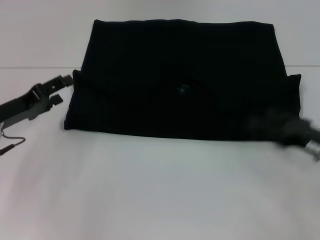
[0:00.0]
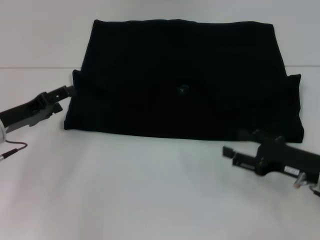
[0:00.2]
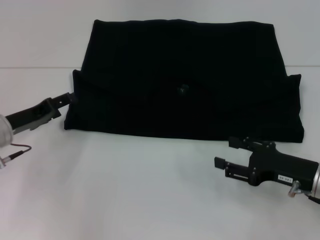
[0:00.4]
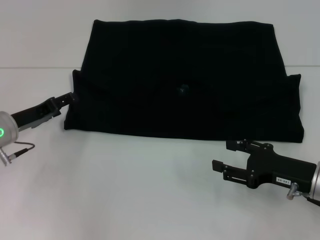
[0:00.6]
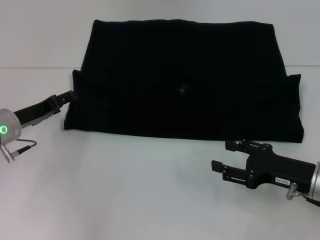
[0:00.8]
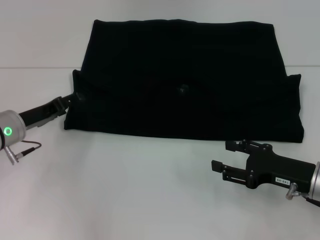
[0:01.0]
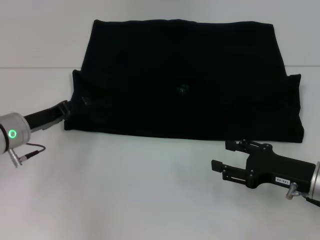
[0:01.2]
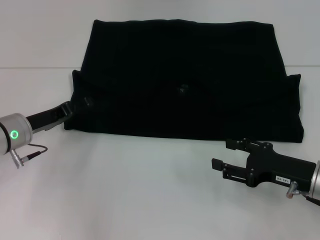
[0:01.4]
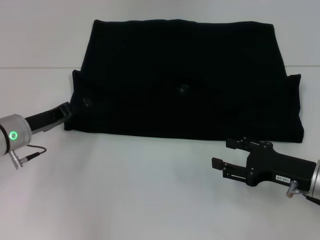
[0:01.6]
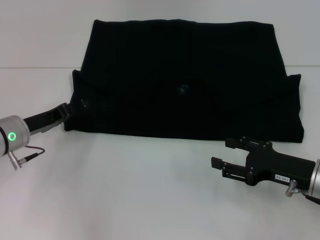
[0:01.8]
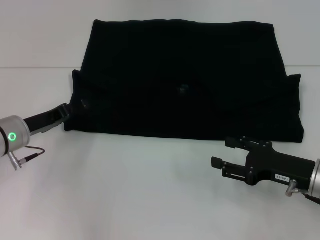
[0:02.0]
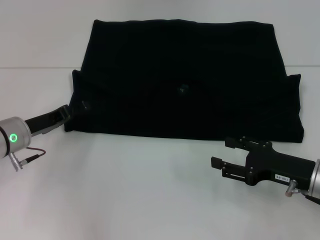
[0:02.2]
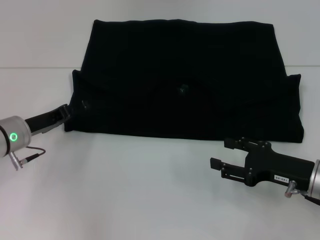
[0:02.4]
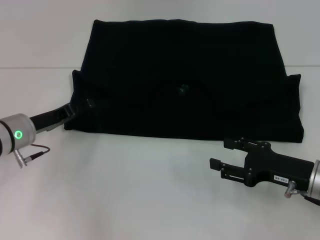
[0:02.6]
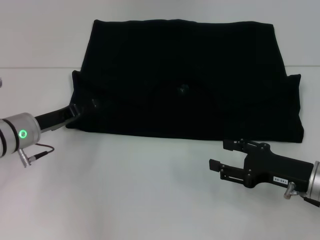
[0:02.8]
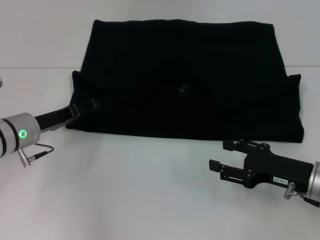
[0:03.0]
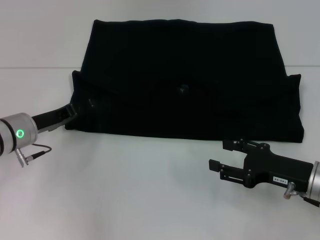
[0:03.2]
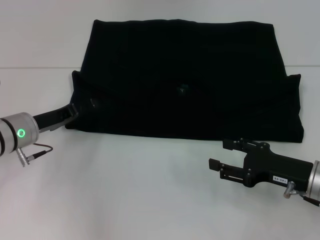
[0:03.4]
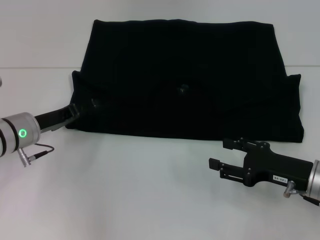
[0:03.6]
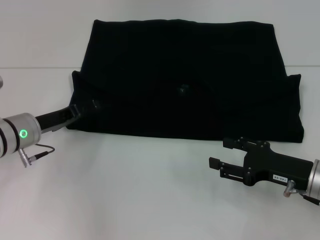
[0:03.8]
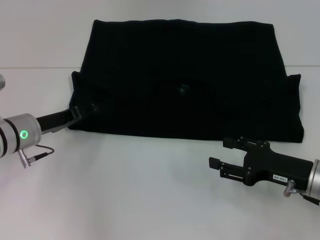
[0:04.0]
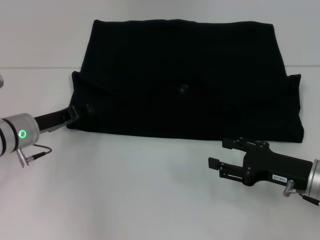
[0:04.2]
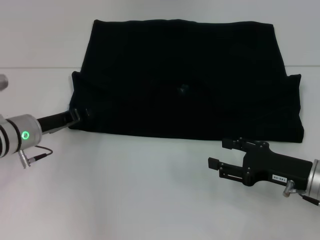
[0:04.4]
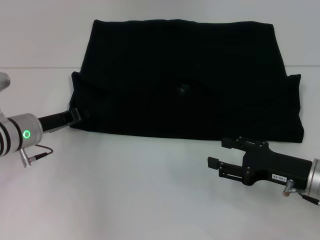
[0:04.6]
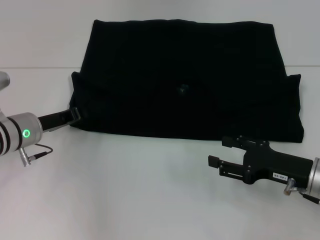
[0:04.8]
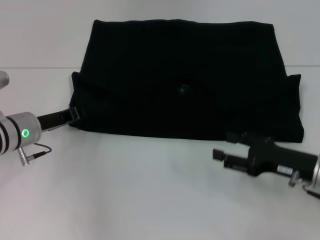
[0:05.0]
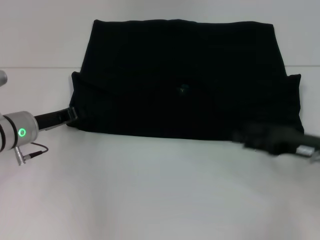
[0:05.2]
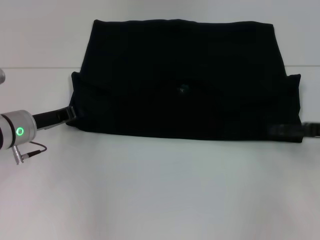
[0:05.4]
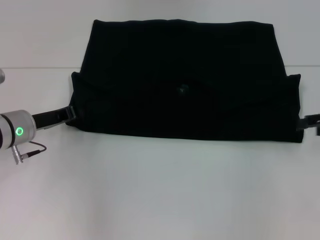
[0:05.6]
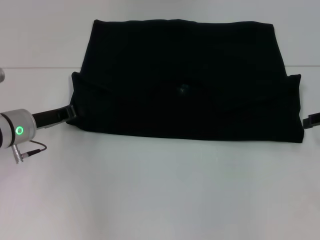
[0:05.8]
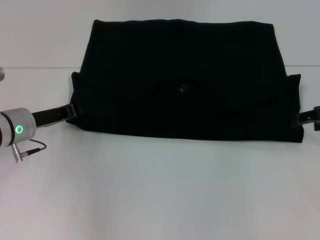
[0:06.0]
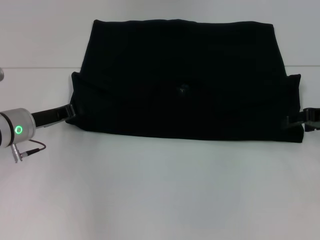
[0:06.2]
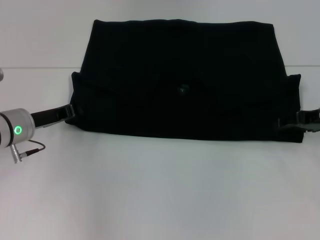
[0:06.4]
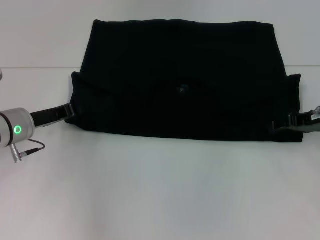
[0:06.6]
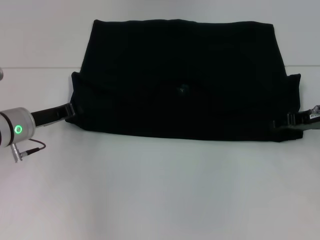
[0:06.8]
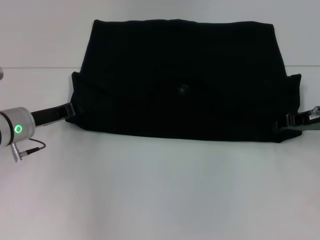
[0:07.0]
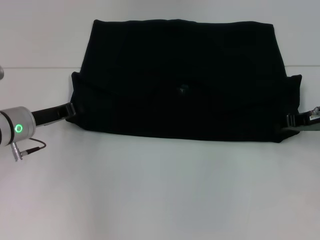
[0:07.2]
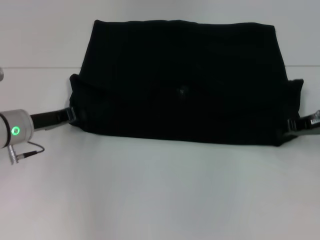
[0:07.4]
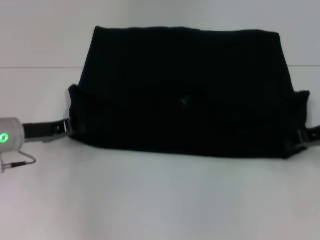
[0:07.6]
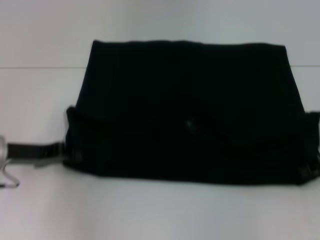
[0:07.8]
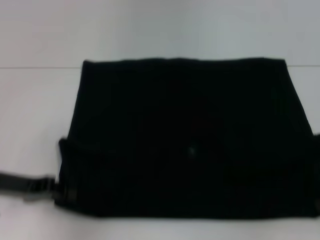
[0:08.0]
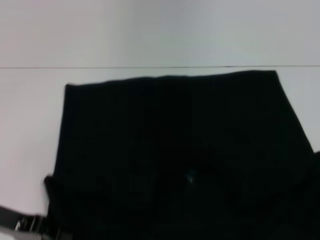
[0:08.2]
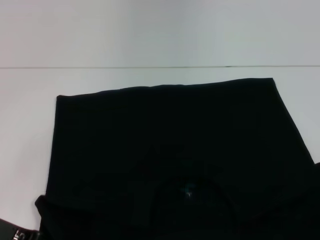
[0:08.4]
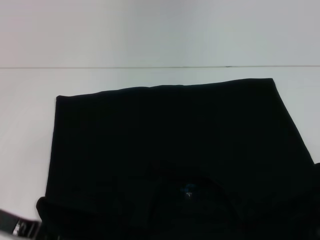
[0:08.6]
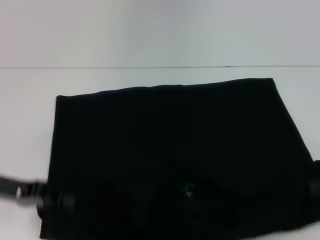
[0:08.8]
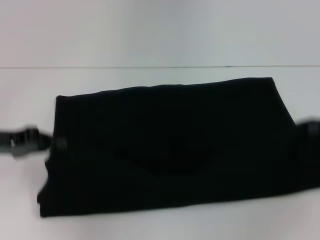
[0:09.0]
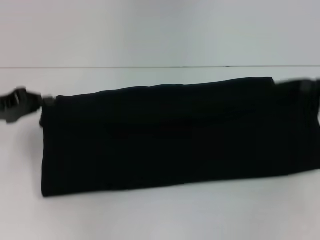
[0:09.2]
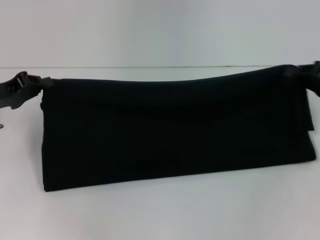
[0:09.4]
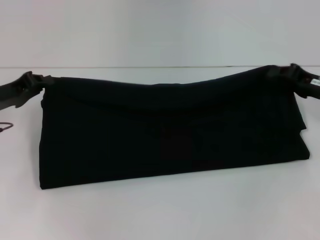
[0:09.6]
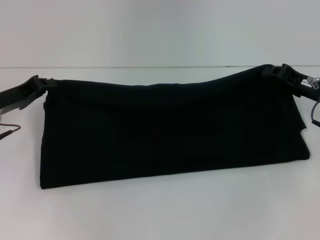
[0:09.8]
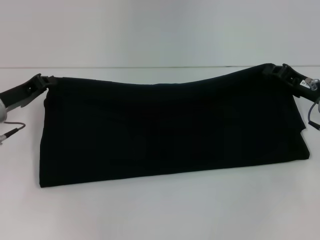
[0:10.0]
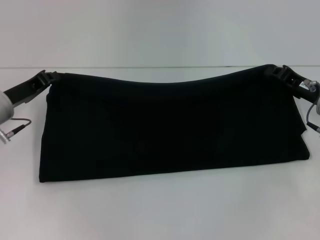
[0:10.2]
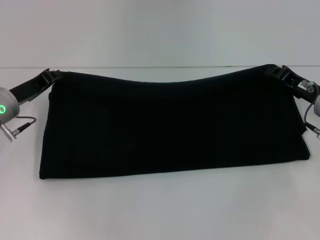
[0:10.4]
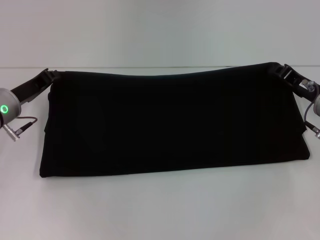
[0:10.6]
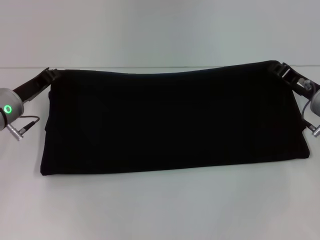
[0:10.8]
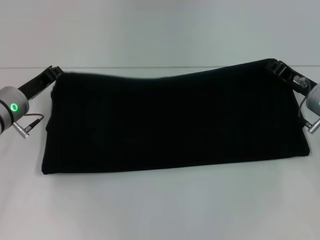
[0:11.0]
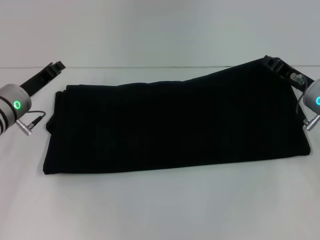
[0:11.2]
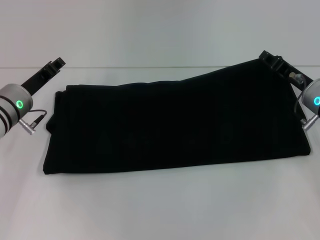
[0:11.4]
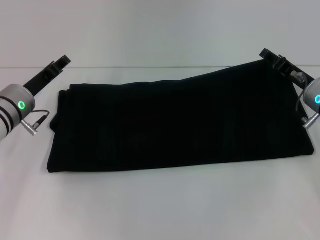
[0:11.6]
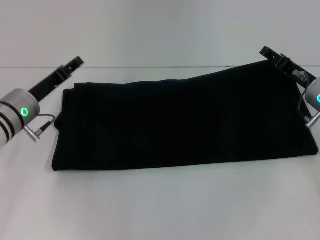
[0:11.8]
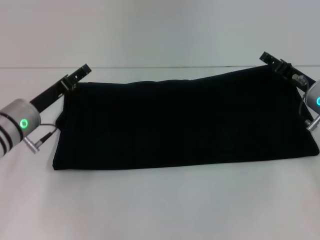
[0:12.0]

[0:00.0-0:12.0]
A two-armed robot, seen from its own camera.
Step, 0:00.0 to 0:08.2: Pull the clothes with your left hand.
Step, 0:00.0 to 0:08.2: Pull the clothes with your right hand.
0:01.6 to 0:03.0: The grippers stay close to where they were, moving slightly.
0:03.0 to 0:04.4: The two grippers keep their place.
0:04.4 to 0:06.0: The left gripper closes up, while the right gripper is displaced upward, forward and to the right by approximately 15 cm.
0:06.0 to 0:07.6: The right gripper closes its fingers.
0:07.6 to 0:09.0: The right gripper goes roughly 5 cm to the right. Meanwhile the left gripper shifts some 5 cm upward.
0:09.0 to 0:10.4: The right gripper heads to the left, downward and forward, covering approximately 15 cm. Meanwhile the left gripper moves forward, some 5 cm.
0:10.4 to 0:12.0: The left gripper opens up, while the right gripper opens.

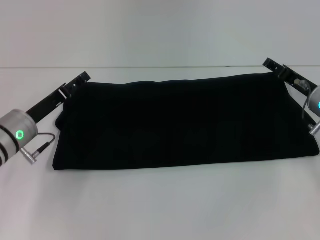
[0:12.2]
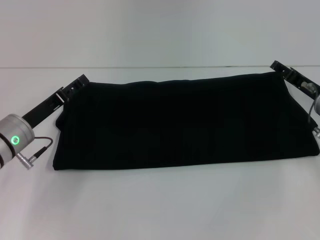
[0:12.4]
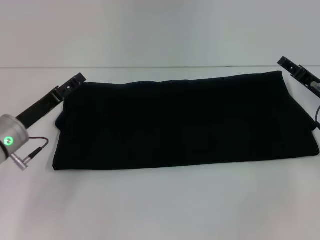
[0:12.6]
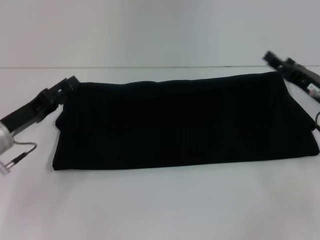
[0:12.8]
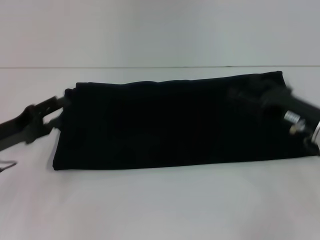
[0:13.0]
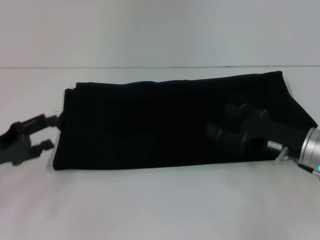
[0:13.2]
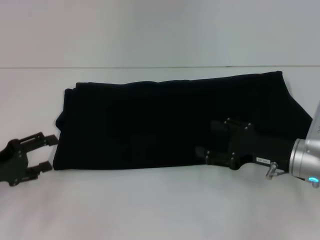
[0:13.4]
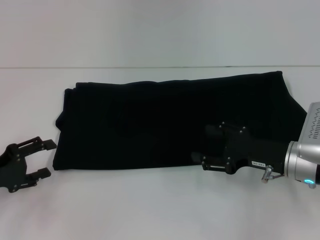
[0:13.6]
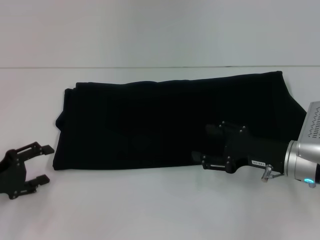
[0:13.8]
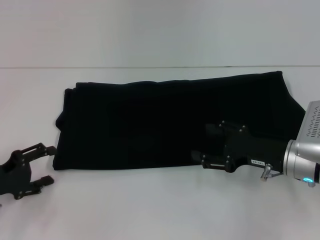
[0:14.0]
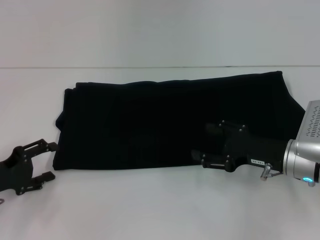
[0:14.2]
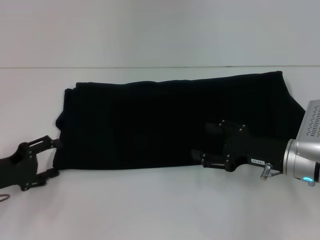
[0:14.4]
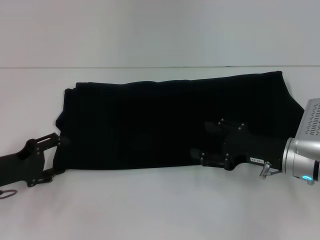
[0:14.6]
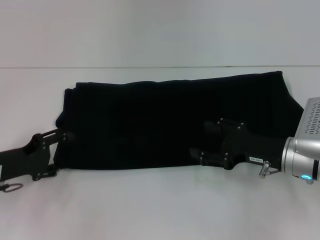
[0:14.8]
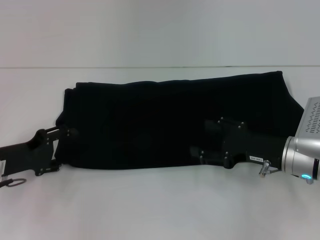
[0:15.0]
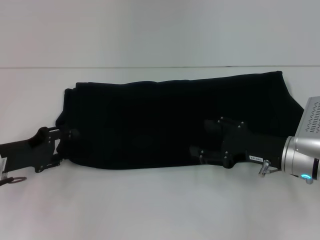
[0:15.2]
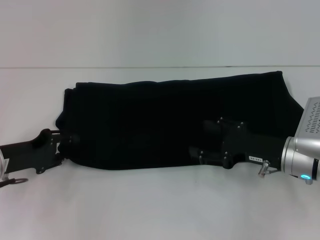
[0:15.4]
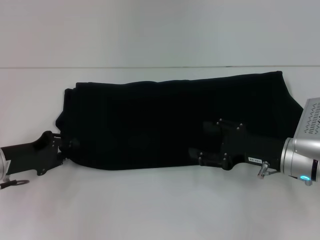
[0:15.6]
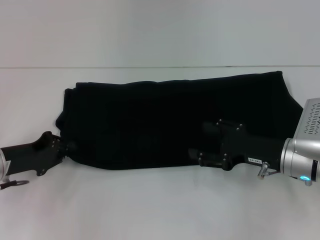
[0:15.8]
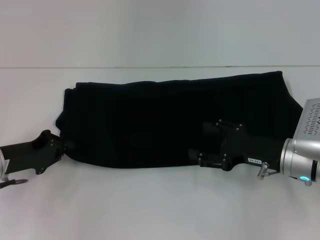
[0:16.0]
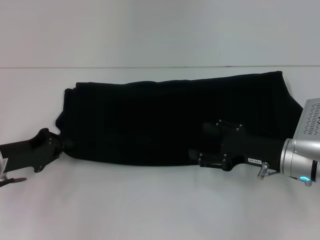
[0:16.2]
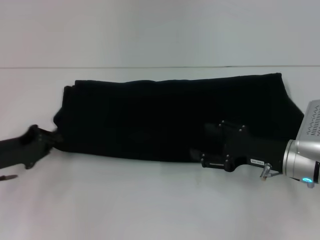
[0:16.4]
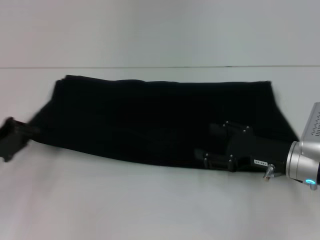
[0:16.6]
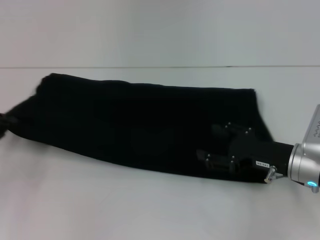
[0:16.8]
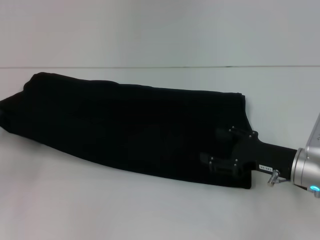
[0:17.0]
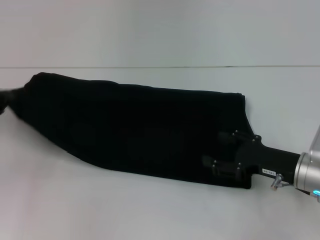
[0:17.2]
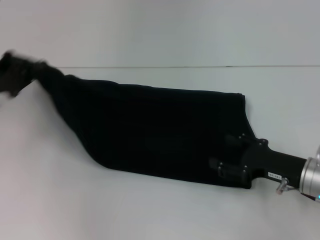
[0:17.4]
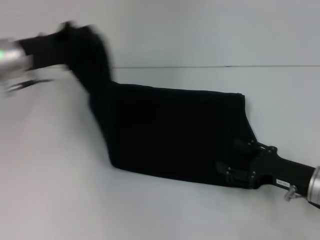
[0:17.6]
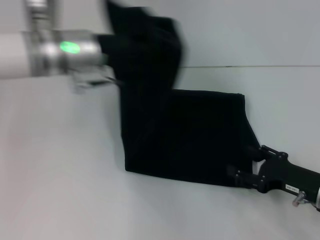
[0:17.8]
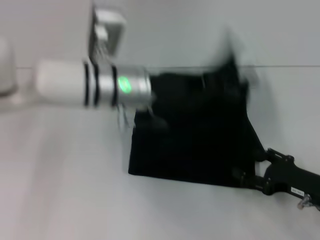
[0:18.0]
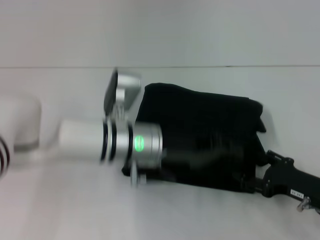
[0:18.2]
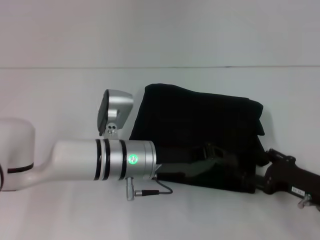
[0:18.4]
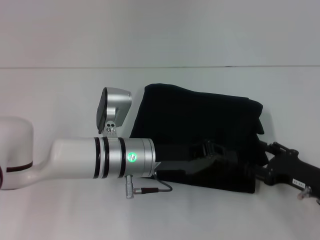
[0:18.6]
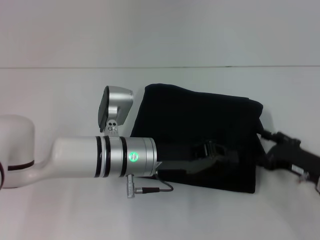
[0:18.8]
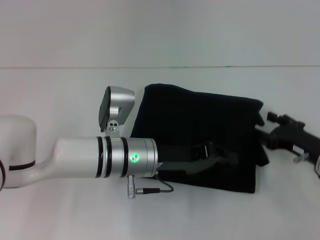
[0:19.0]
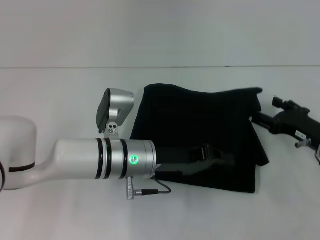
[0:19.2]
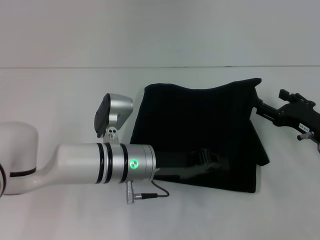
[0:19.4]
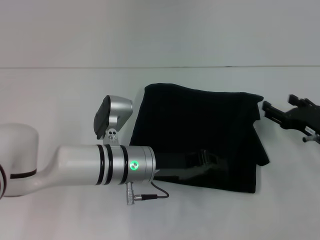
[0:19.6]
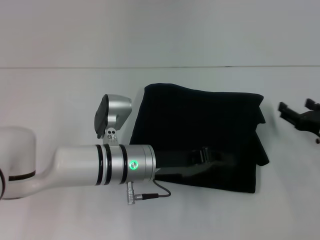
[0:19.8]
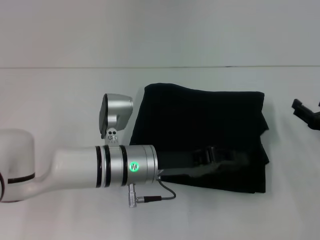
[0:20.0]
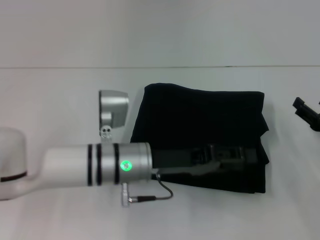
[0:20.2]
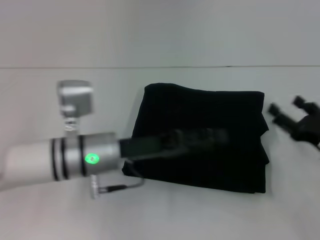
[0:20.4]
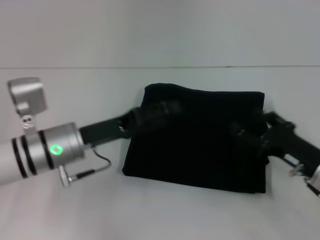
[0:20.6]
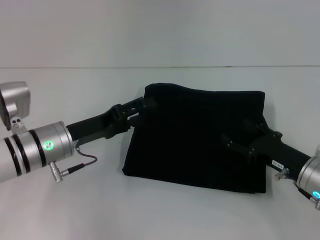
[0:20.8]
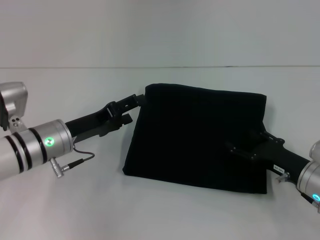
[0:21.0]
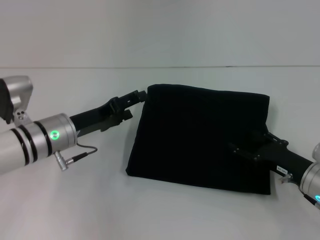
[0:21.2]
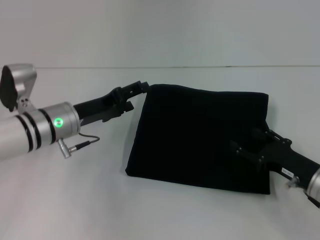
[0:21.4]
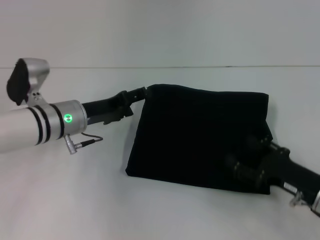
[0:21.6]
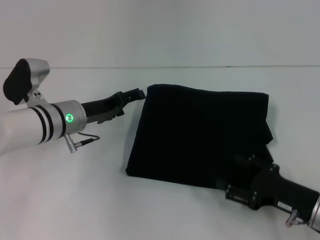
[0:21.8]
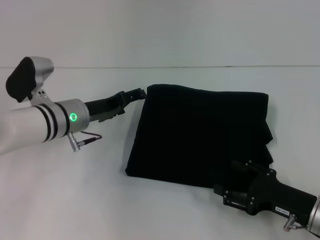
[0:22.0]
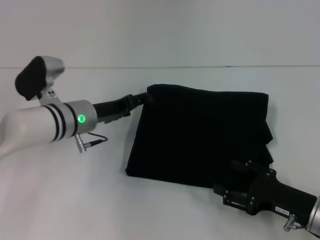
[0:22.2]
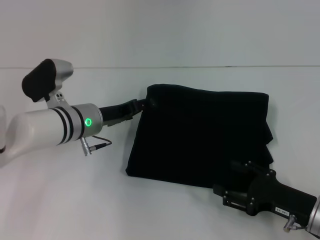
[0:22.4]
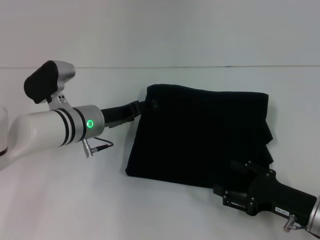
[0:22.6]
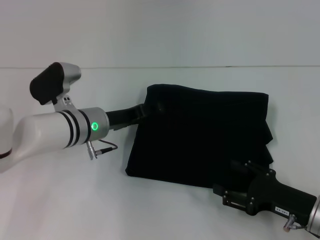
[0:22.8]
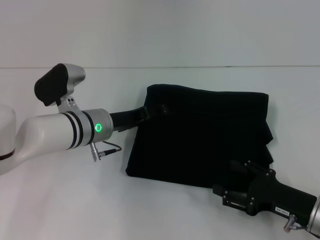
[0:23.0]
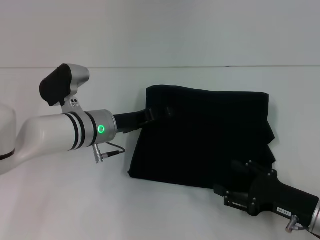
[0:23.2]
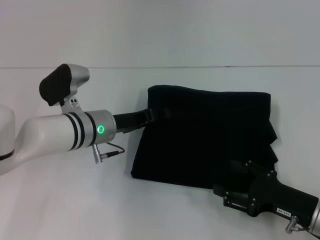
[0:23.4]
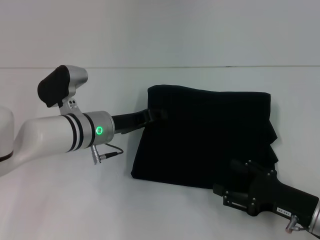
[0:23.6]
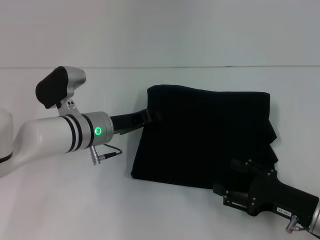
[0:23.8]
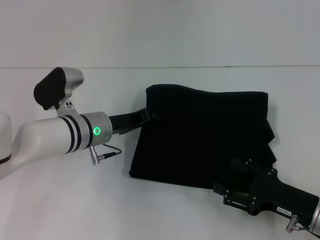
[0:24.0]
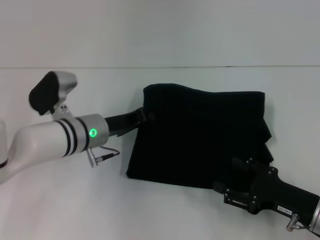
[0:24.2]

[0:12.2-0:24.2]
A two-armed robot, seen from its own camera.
Step, 0:12.2 to 0:20.4: Fold the clothes with your left hand.
0:12.2 to 0:13.8: The right gripper shifts approximately 10 cm backward; the left gripper is displaced to the left and backward by some 15 cm.
0:13.8 to 0:15.2: The left gripper is displaced forward by approximately 5 cm.
0:15.2 to 0:16.6: The left gripper closes up.
0:16.6 to 0:18.2: The right gripper shifts some 5 cm backward and to the right, while the left gripper heads to the right, covering roughly 30 cm.
0:18.2 to 0:19.8: The right gripper travels forward by roughly 5 cm.
0:19.8 to 0:21.2: The right gripper moves to the left, roughly 5 cm; the left gripper goes roughly 10 cm to the left, and opens its fingers.
0:21.2 to 0:22.6: The right gripper shifts roughly 5 cm backward, while the left gripper ends up roughly 5 cm from where it was.
0:22.6 to 0:24.2: The left gripper closes up.
